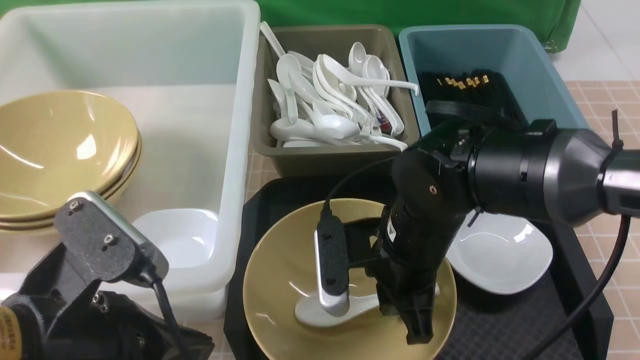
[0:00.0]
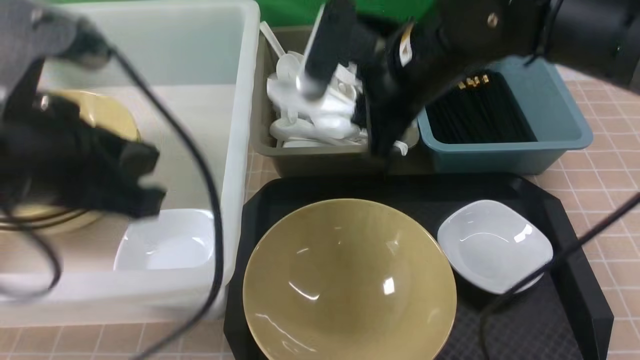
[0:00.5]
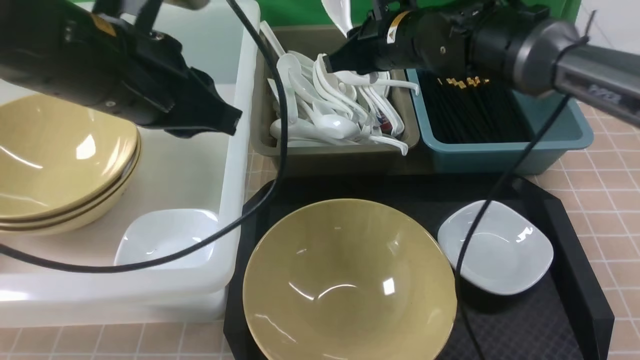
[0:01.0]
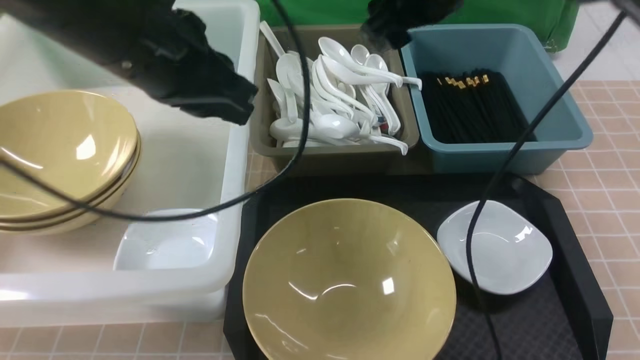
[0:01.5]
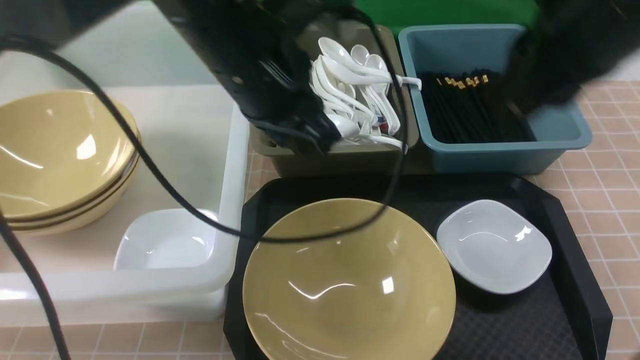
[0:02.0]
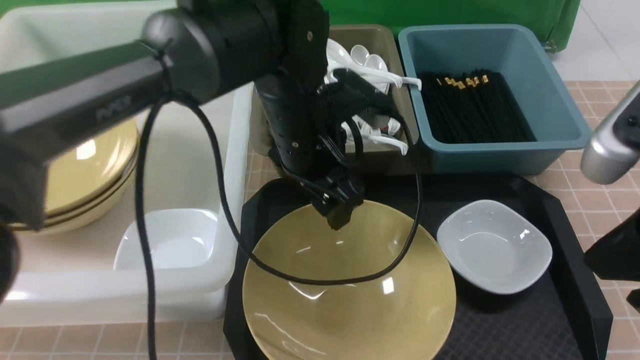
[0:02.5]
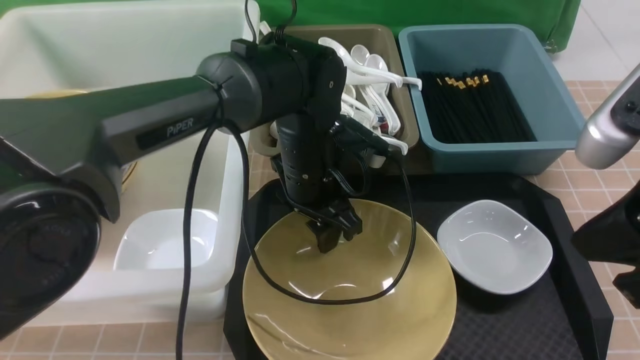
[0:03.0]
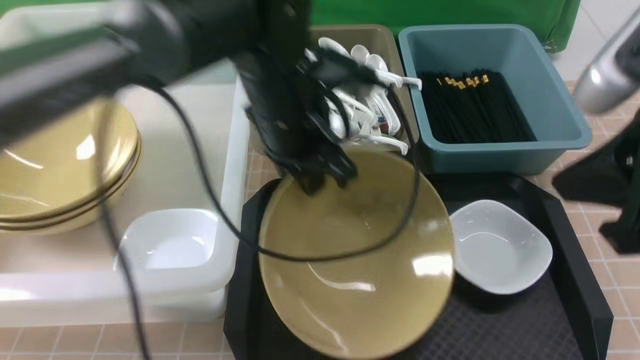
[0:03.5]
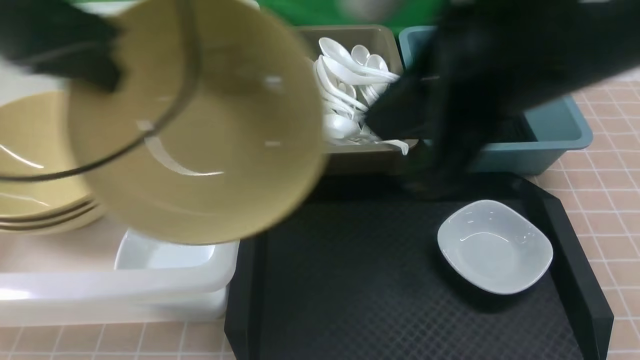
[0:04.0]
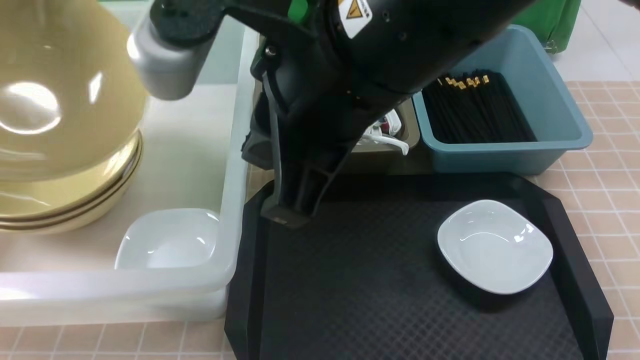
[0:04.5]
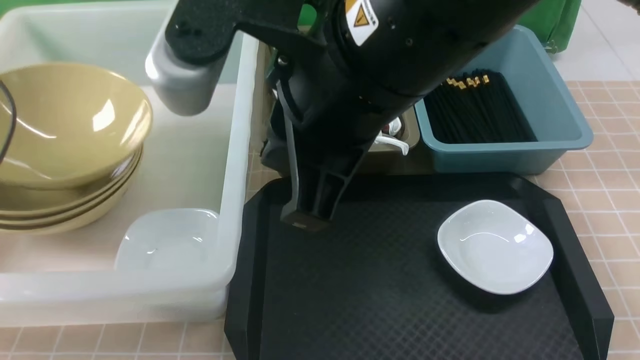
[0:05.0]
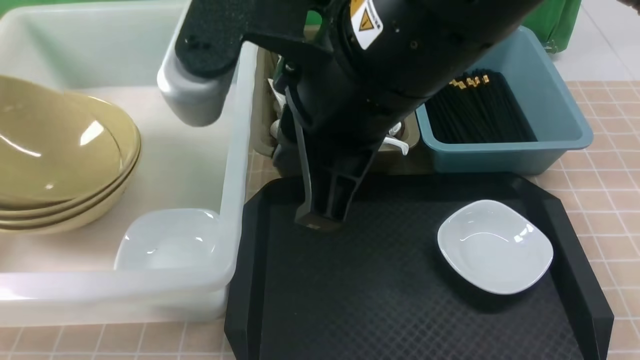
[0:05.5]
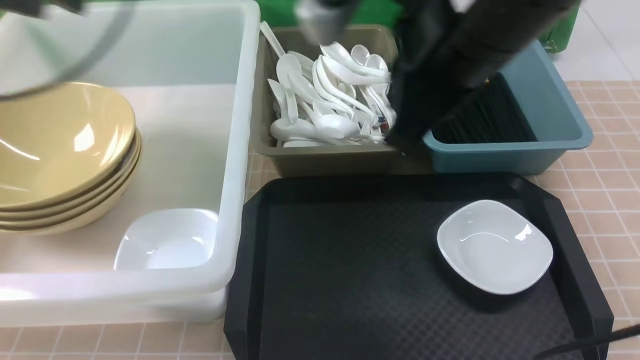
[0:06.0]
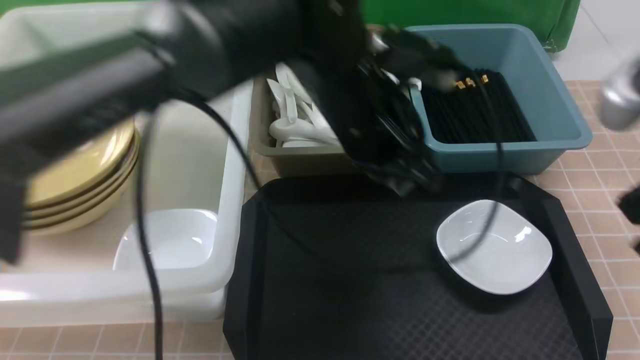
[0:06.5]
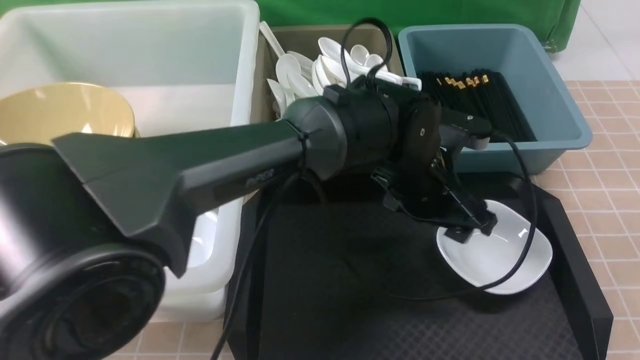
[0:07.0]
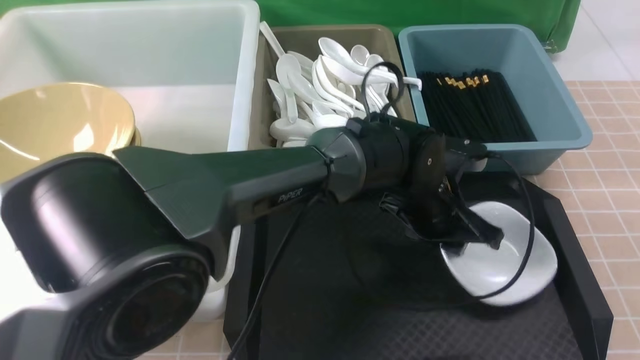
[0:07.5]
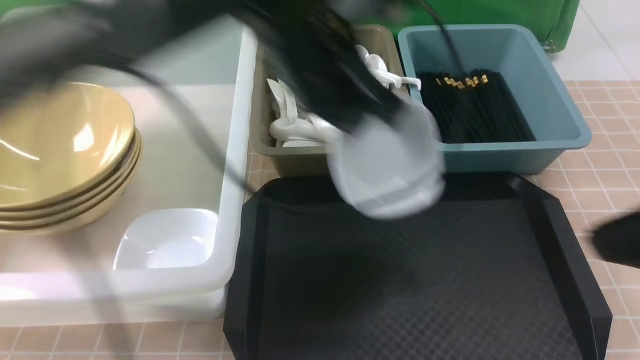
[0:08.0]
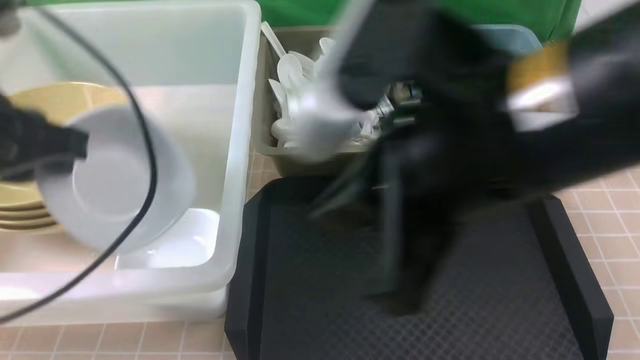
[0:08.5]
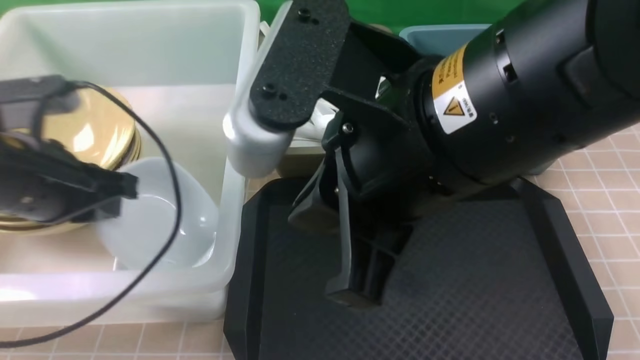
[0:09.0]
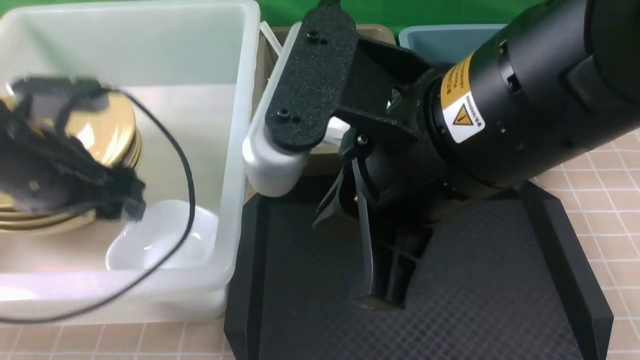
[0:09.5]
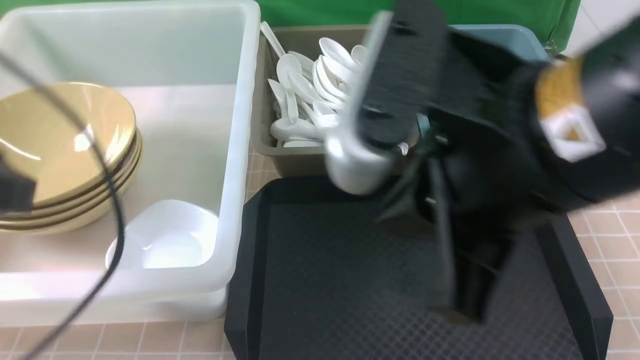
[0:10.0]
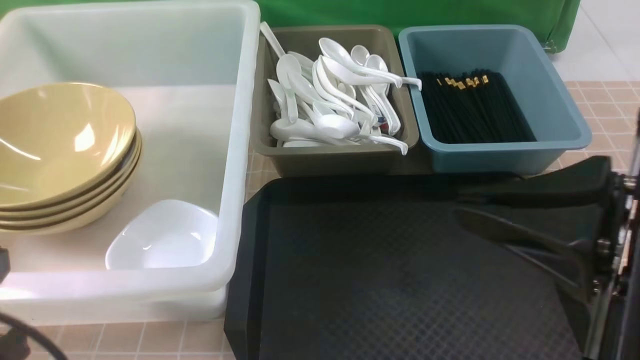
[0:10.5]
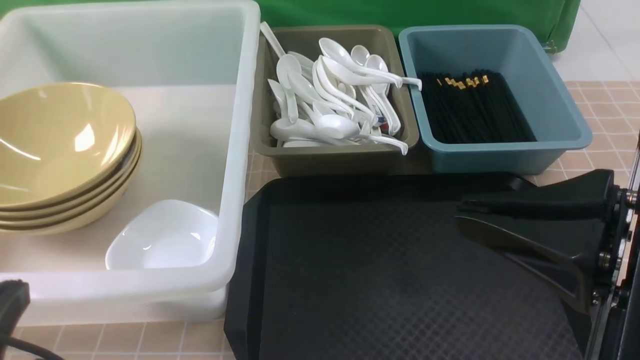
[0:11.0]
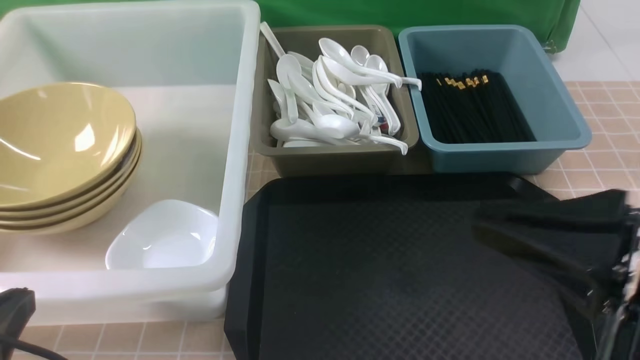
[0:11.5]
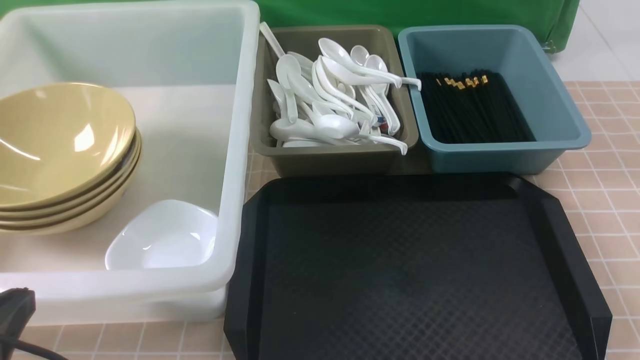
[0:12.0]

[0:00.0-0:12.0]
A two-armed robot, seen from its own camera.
Task of the whole recording: on brown table put chopsticks spoon bowls plates into blue grey white boxes.
Step, 0:00.5 to 0:01.0: use the right arm to put the soup spoon into the small storage box in the middle.
Step, 0:01.5 to 0:03.0: use the left arm to grab the yellow noodle bowl on the left.
Step, 0:03.5 to 0:05.5: use the left arm to put the noodle bowl into the large storage box on the left.
Step, 0:06.0 to 0:07.5: use the left arm to grab the plate.
Step, 0:08.0 to 0:09.5: use the left arm to put the plate into the large storage box on the left.
0:00.0 to 0:02.0: The left gripper heads forward and to the right, covering approximately 25 cm; the right gripper goes roughly 20 cm upward and to the right, travels forward and back again, about 20 cm each way, and opens and closes again.
0:02.0 to 0:04.0: The left gripper travels to the left by roughly 20 cm, and opens and closes again. Meanwhile the right gripper is displaced to the left and backward by about 10 cm.
0:04.0 to 0:06.0: The left gripper goes to the left and returns, about 20 cm each way, and opens its fingers. Meanwhile the right gripper is displaced forward by approximately 5 cm, and reaches roughly 5 cm to the left, then returns.
0:06.0 to 0:08.0: The right gripper moves backward and to the right, some 15 cm; the left gripper moves to the right and downward, roughly 20 cm, and closes up.
0:08.0 to 0:10.0: The right gripper travels to the left by approximately 10 cm. Meanwhile the left gripper is displaced to the left and backward by some 25 cm, and opens up.
0:10.0 to 0:12.0: The right gripper goes about 25 cm to the right and downward. Meanwhile the left gripper travels downward and backward by approximately 15 cm, and closes up.

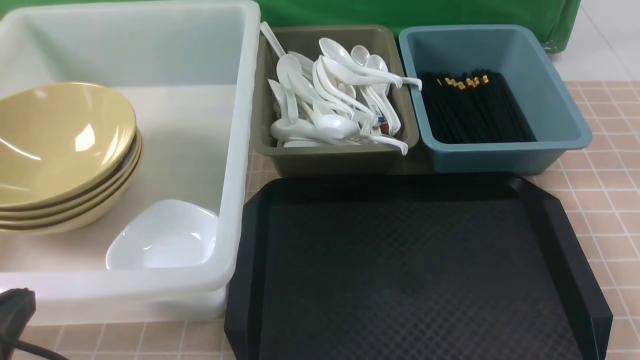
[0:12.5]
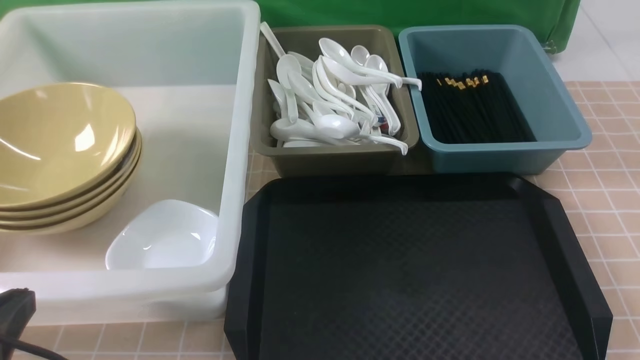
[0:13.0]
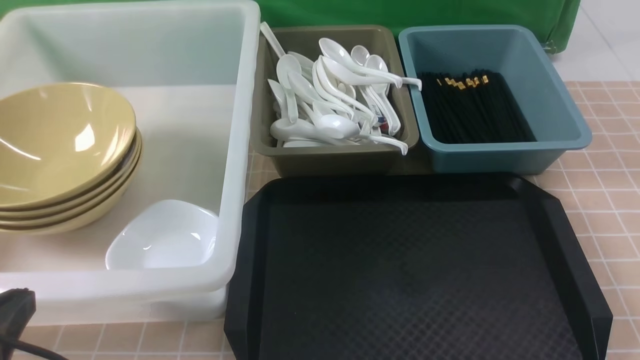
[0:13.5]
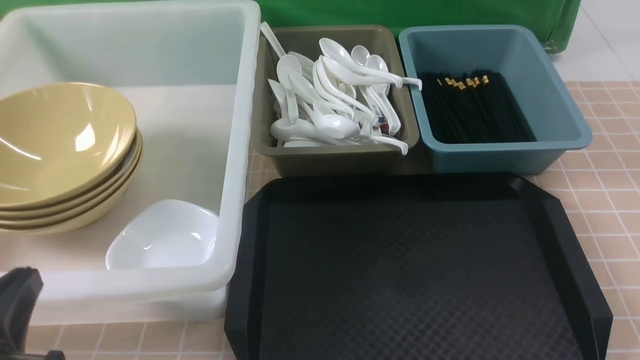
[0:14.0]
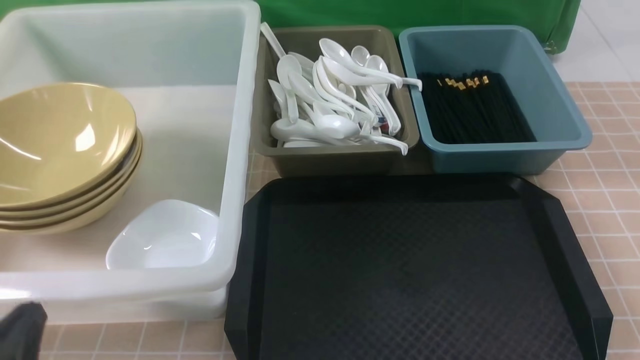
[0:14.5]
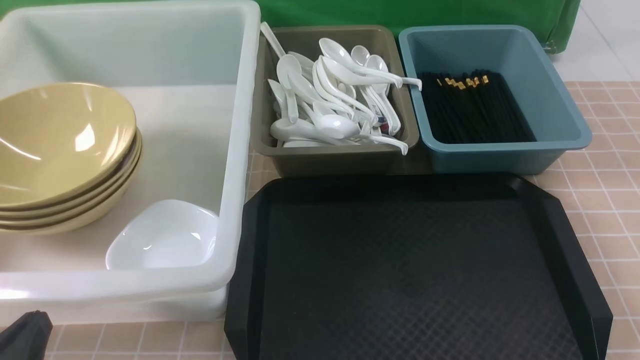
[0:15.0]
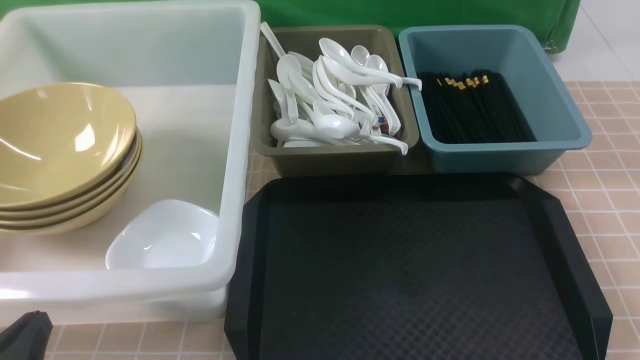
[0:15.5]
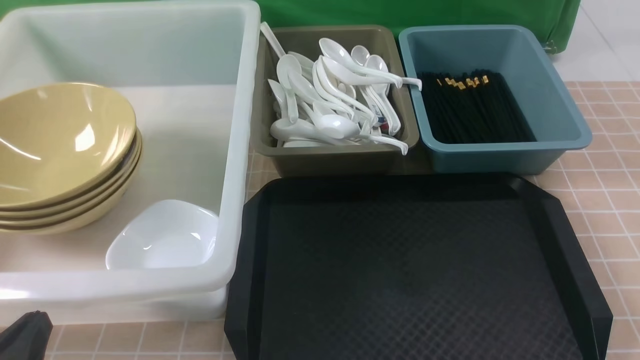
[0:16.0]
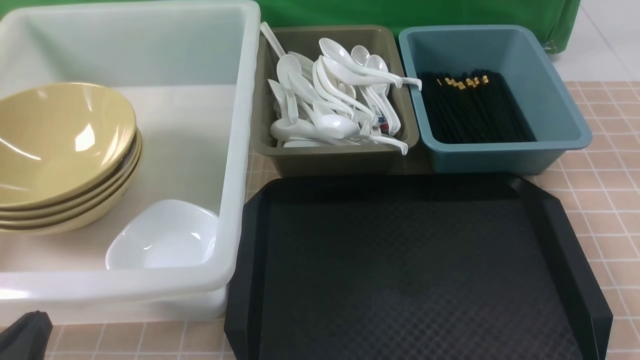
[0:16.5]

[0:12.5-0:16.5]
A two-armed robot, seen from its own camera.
Task of the whole recording: on brown table put chopsticks spoon bowls plates into blue grey white boxes.
0:12.5 to 0:14.5: The left gripper travels downward by roughly 5 cm.
0:14.5 to 0:16.5: Both grippers stay about where they are.
